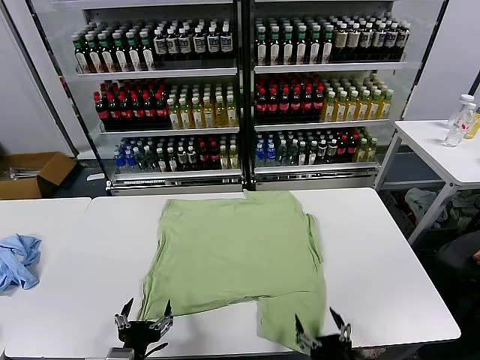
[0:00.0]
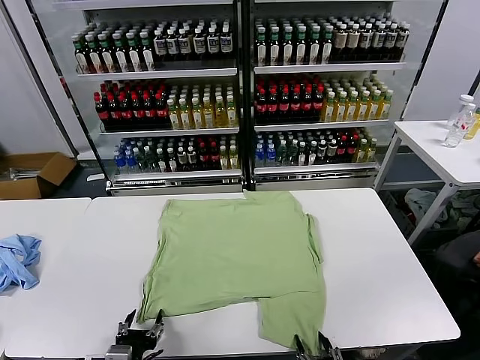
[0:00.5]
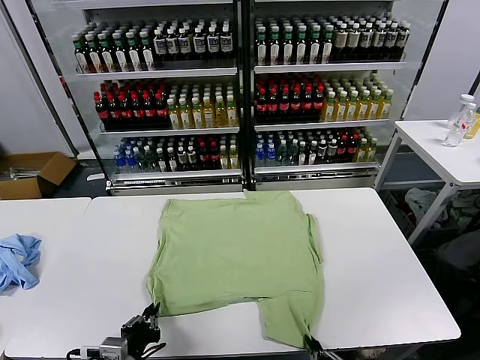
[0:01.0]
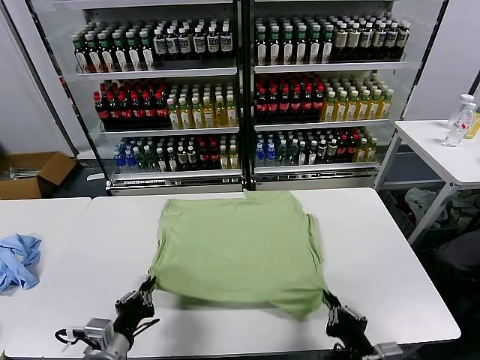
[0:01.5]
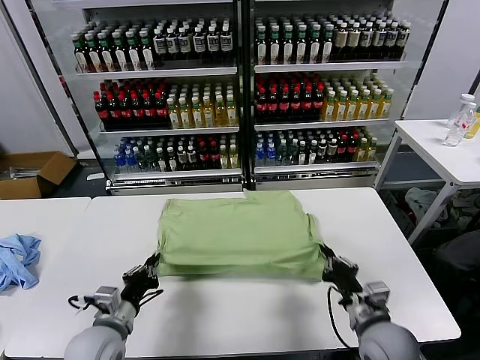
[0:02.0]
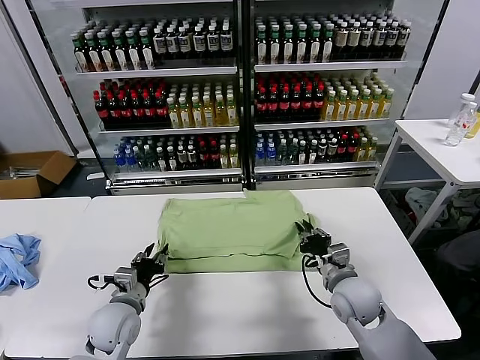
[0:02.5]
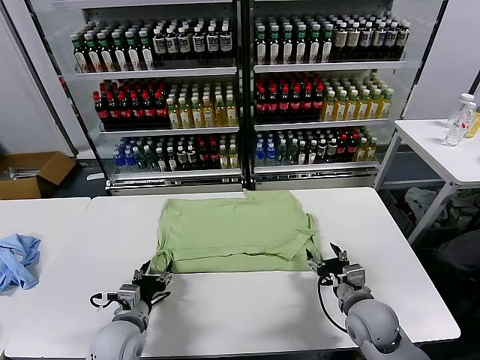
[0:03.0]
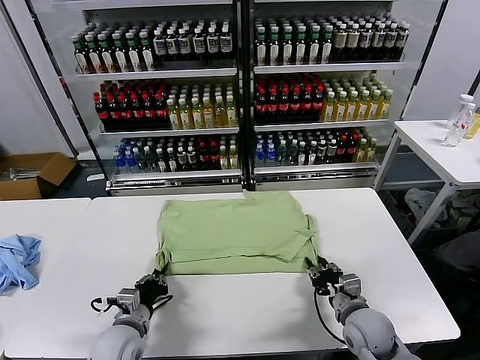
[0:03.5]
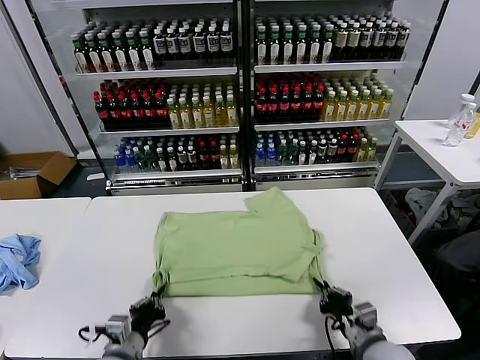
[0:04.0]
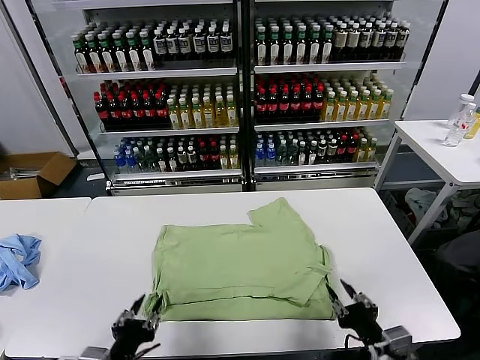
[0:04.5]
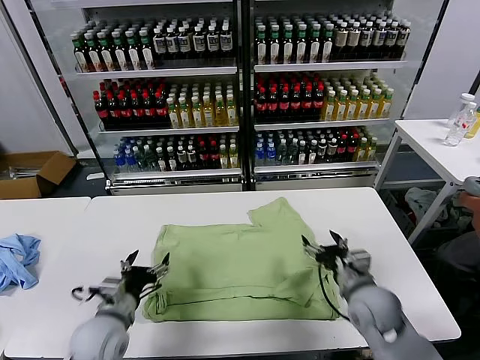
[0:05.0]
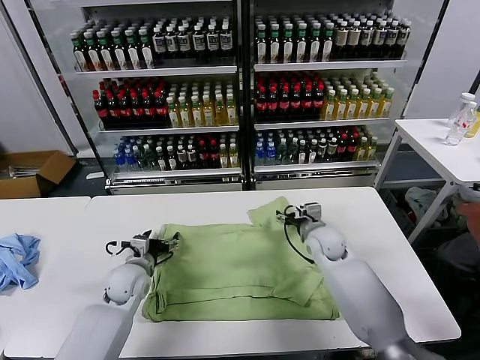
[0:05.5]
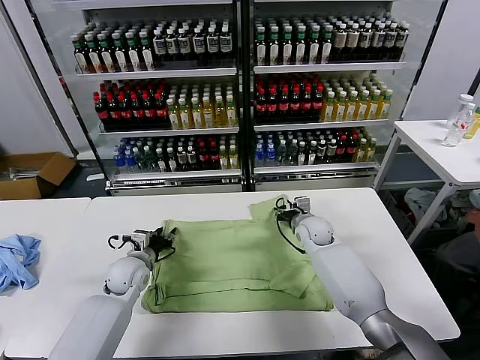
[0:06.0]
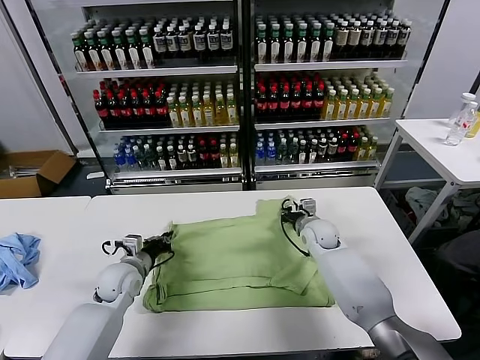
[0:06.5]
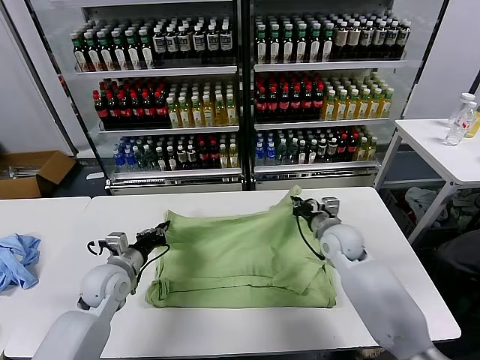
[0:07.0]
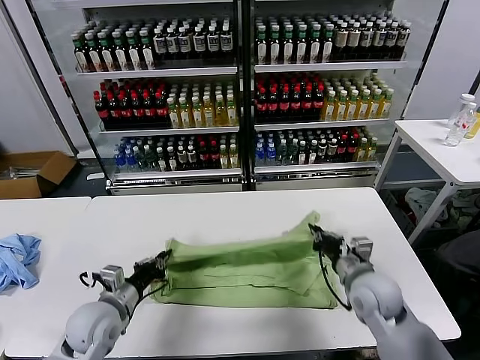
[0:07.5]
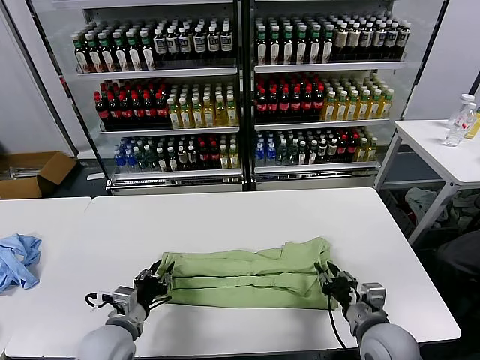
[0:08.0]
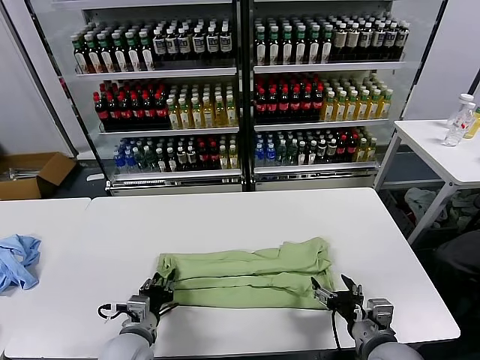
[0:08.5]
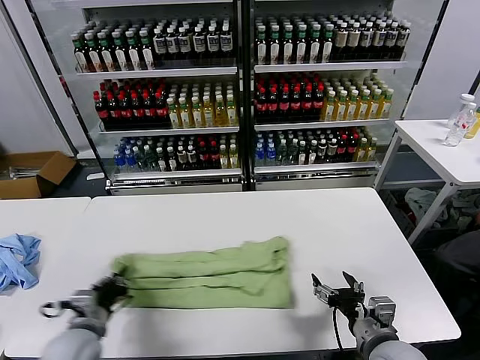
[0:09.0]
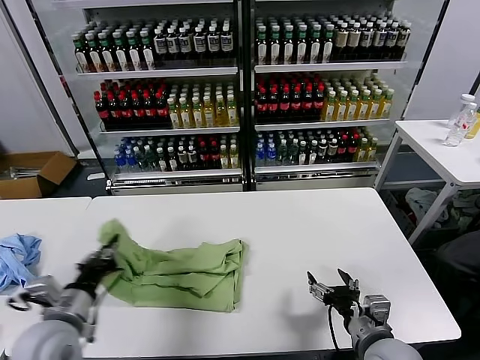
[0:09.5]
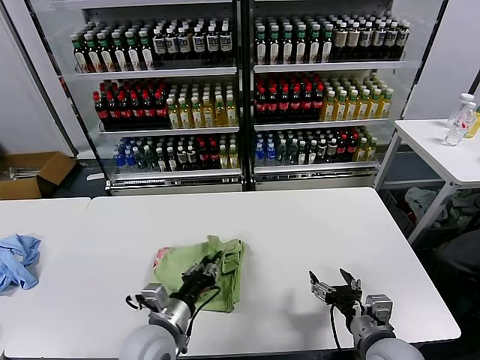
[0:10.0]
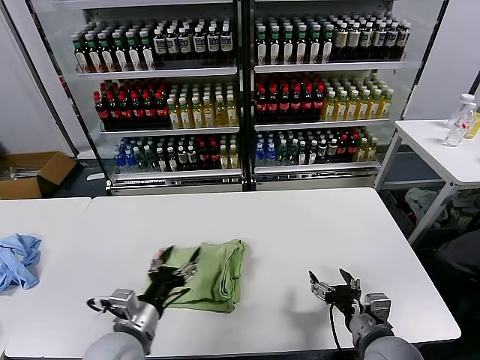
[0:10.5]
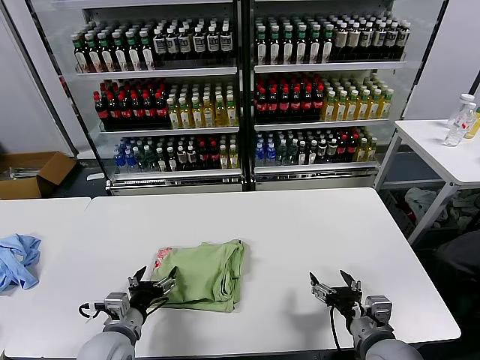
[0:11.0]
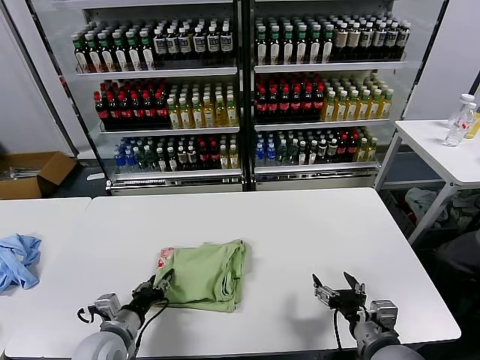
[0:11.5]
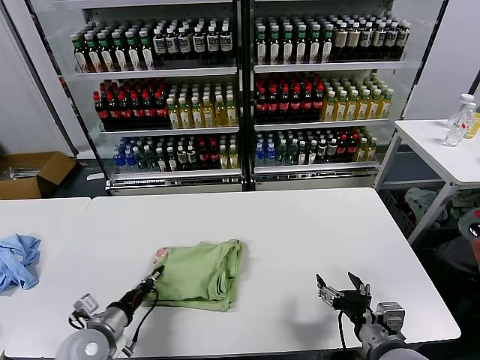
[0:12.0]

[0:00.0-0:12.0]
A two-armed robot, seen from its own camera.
Task of the whole recording: fold and organize the clothes.
Step, 0:00.0 to 0:01.0: use both grippers simultaneously to clamp the lower edge of the clothing fabric.
Step, 0:01.5 to 0:02.5: use both grippers to drag the lower edge of the fabric forward and fold it over the upper edge.
Step, 0:03.0 to 0:04.0: Drag the clothes downward with both gripper.
Step, 0:04.5 to 0:06.0: use both grippers simultaneously to clamp the upper edge of the clothing fabric.
Step, 0:07.0 to 0:07.5: use both grippers to drag the upper edge of the fabric backward and fold it over the lower edge.
Step, 0:08.0 to 0:08.5: use the left gripper to clamp the left edge of the fabric.
Step, 0:09.0 to 0:10.0: use the left gripper to drag the left edge of the fabric to the left and folds it over the right edge.
0:02.0 to 0:04.0: The left gripper travels backward by roughly 5 cm, and opens and closes again, while the right gripper travels backward by about 10 cm, and opens, then closes once more.
0:04.0 to 0:06.0: The right gripper is displaced forward by roughly 35 cm, and opens; the left gripper moves forward, about 25 cm, and opens its fingers.
0:06.0 to 0:08.0: The right gripper moves backward, roughly 30 cm, and closes, then opens again; the left gripper travels backward by roughly 15 cm, and closes and opens again.
0:08.0 to 0:10.0: The right gripper opens, while the left gripper is displaced to the right by some 10 cm.
0:10.0 to 0:12.0: The left gripper shifts approximately 15 cm to the left and downward, and opens, then closes again.

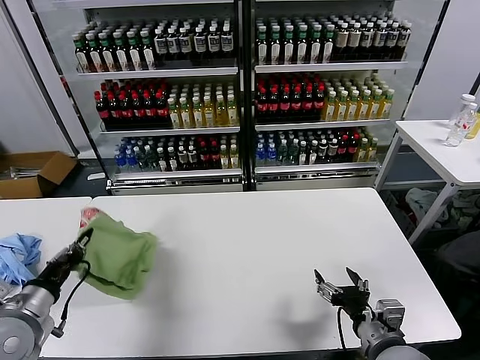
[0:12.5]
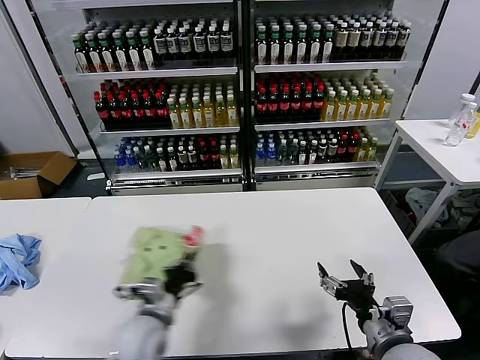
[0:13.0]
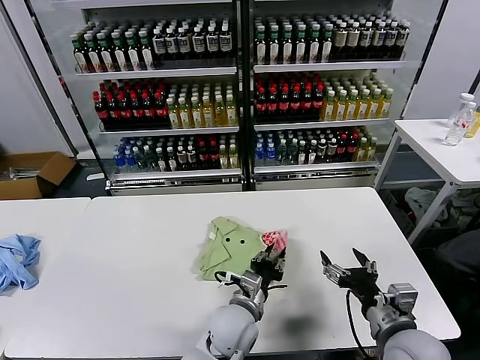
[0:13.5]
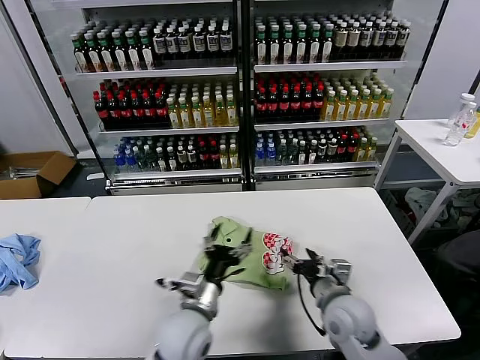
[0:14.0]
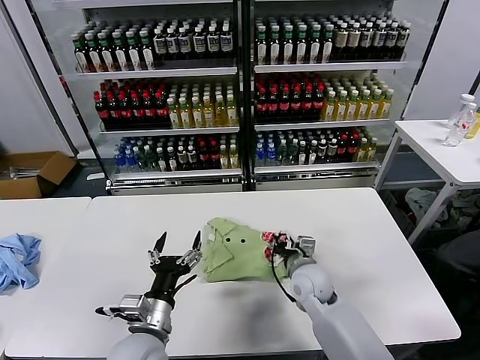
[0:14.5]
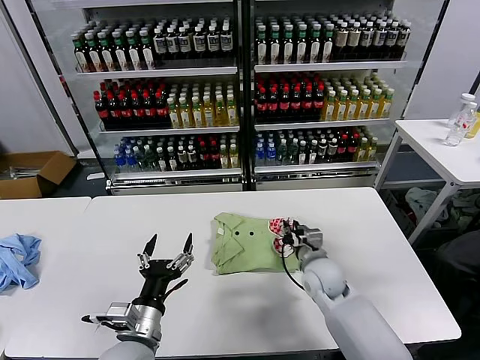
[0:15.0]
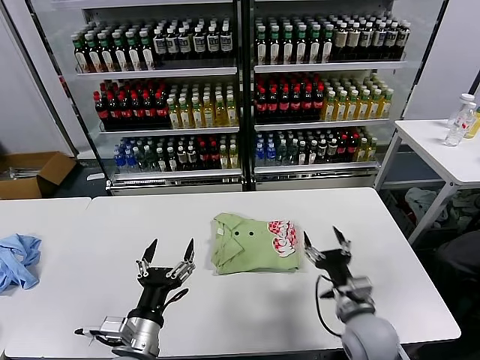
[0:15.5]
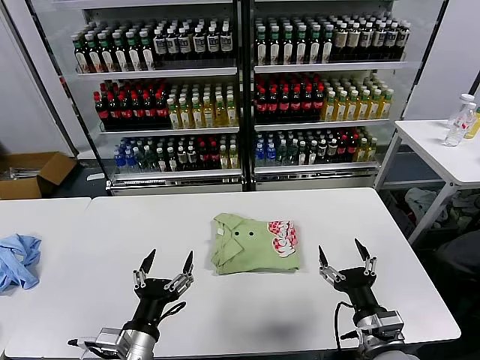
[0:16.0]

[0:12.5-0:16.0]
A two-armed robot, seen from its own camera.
Task of the whole recording: fold and organize the clothes.
Step, 0:14.0 to 0:15.0: Drag the clothes to the center of the table.
0:12.5 to 0:14.5: The left gripper travels to the right by some 25 cm, and opens its fingers, while the right gripper heads forward and to the left, covering some 20 cm, and closes its fingers.
0:14.5 to 0:16.0: The right gripper is displaced backward and to the right by some 20 cm, and opens, while the left gripper travels backward by some 5 cm.

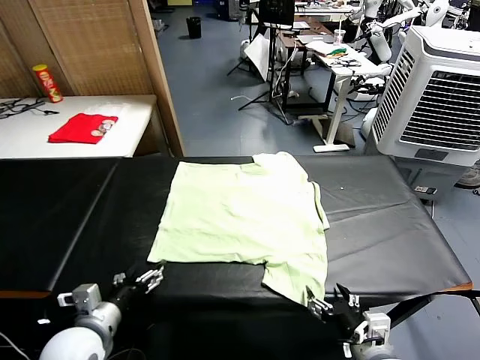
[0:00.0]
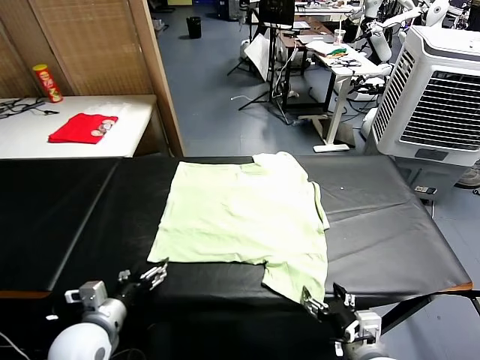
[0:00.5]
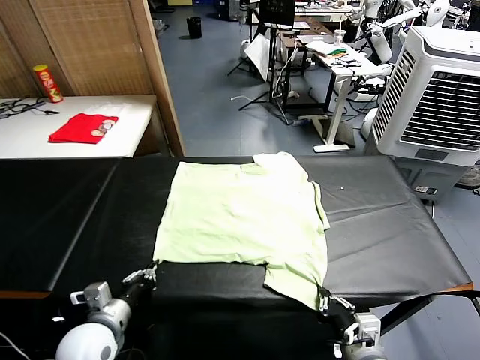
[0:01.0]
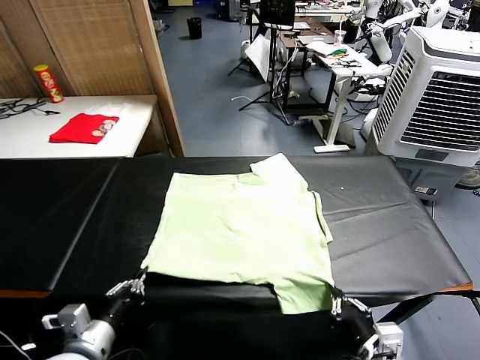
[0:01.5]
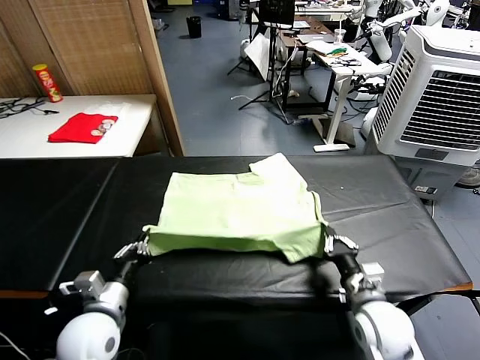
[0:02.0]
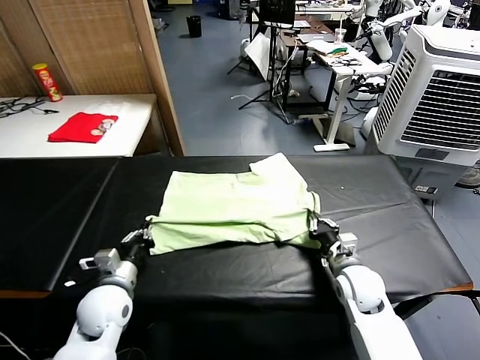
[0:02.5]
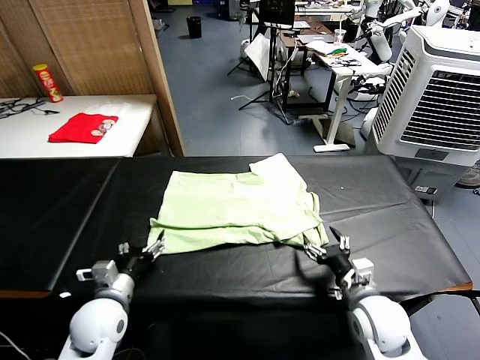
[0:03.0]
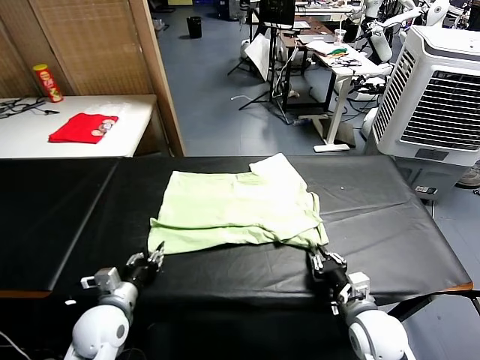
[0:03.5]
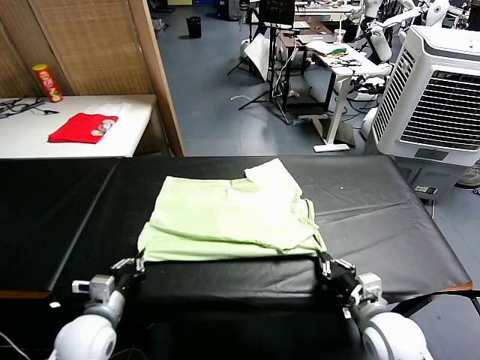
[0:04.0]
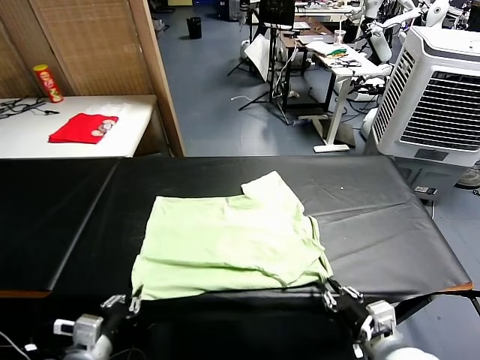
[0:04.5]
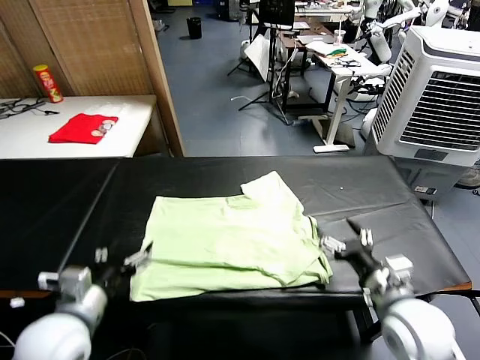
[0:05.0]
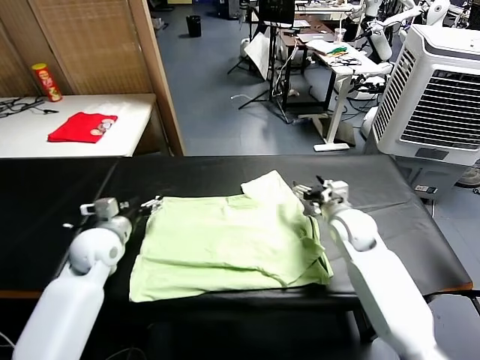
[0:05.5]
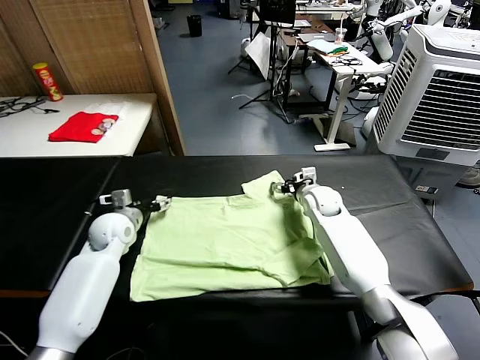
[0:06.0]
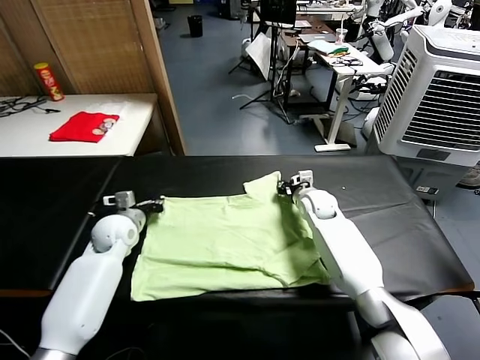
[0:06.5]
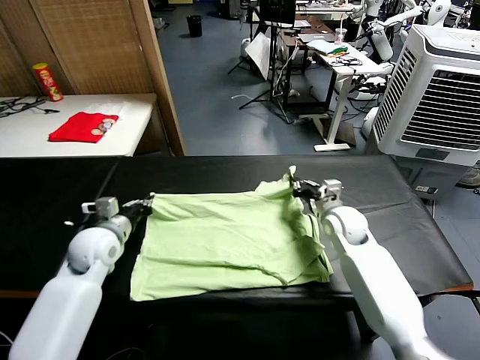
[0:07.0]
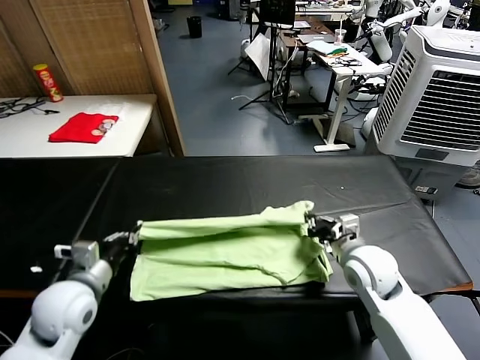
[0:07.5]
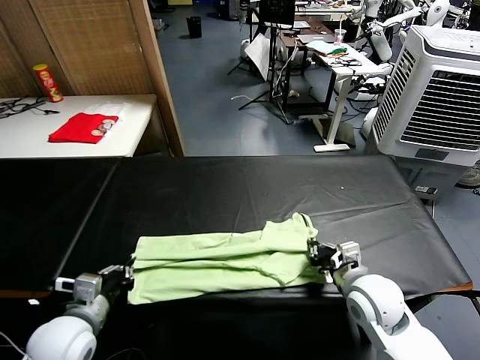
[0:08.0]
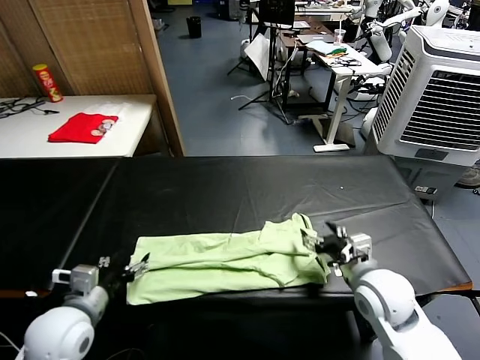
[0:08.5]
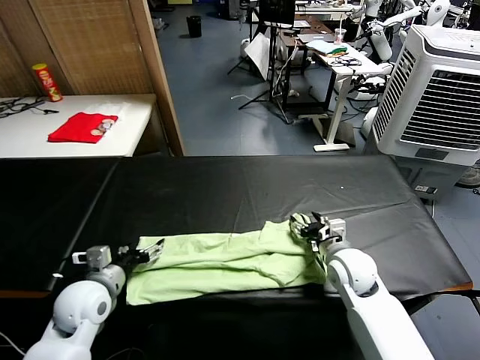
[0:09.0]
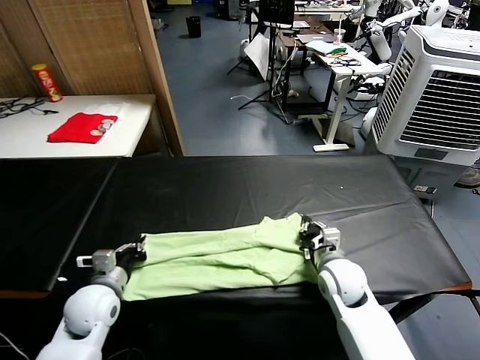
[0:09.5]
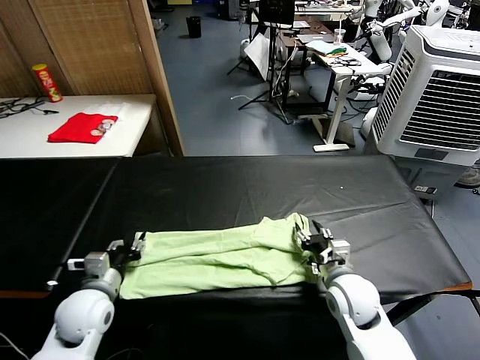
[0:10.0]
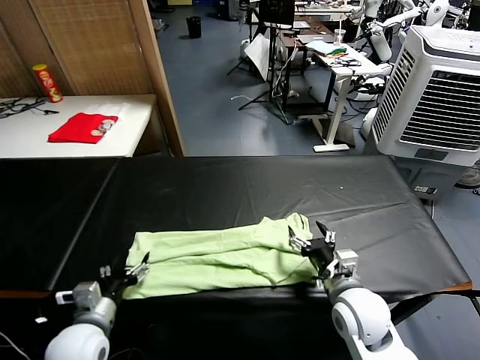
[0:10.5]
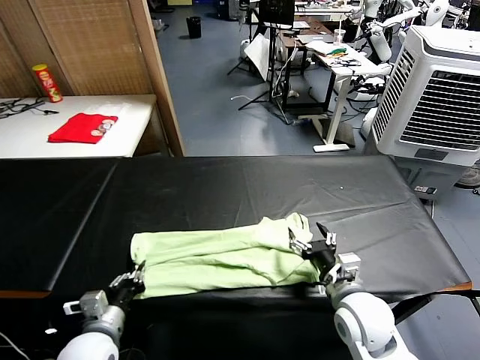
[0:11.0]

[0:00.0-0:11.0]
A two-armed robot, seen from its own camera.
Task of the whole recording: fold and organize the clothes.
Step, 0:00.0 to 0:01.0: use both grippers simultaneously to clamp the lower edge of the clothing fabric.
Step, 0:01.5 to 0:02.5: use both grippers to drag the lower edge of the fabric forward and fold it over the upper edge.
Step, 0:03.0 to 0:04.5: Drag the clothes downward with both gripper.
Step, 0:05.0 to 0:06.0: use both grippers simultaneously to clamp the upper edge of the clothing fabric.
Step, 0:07.0 to 0:08.0: use both grippers to drag the upper edge of the fabric backward and fold it over the lower edge.
0:02.0 to 0:03.5: The right gripper travels backward by approximately 10 cm, and opens, then closes once more, while the left gripper ends up some 5 cm from where it was, and opens, then closes again.
0:03.5 to 0:05.5: The left gripper heads forward and upward, covering roughly 15 cm, and opens up. The right gripper travels forward by about 25 cm, and opens up.
0:05.5 to 0:07.5: The grippers both shift backward by roughly 15 cm. The right gripper closes its fingers. The left gripper closes.
0:07.5 to 0:09.0: The left gripper moves about 5 cm, and opens its fingers. Meanwhile the right gripper travels downward by roughly 5 cm, and opens up.
0:09.0 to 0:11.0: Both grippers travel together backward, roughly 10 cm. The right gripper opens up. Meanwhile the left gripper closes its fingers.
